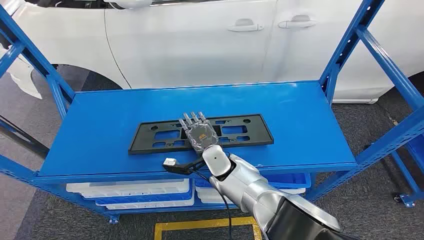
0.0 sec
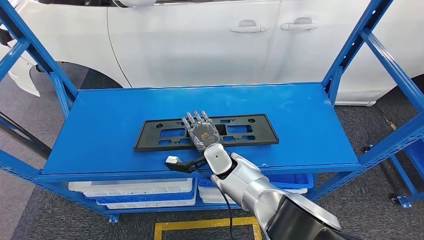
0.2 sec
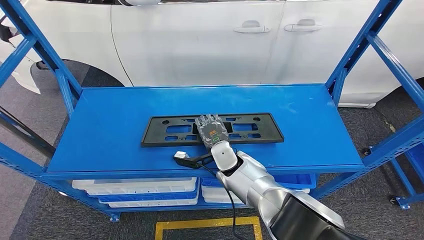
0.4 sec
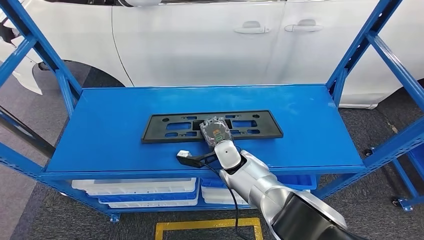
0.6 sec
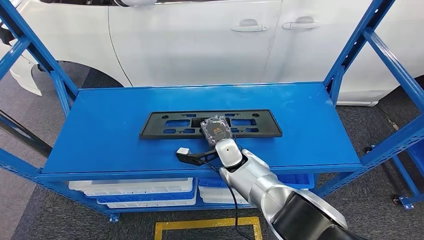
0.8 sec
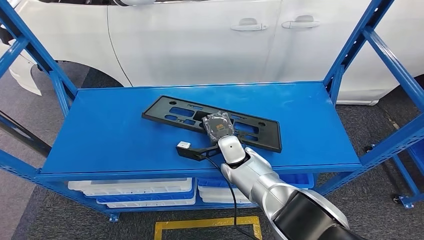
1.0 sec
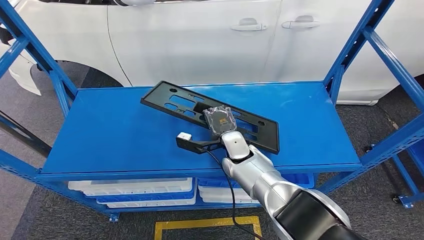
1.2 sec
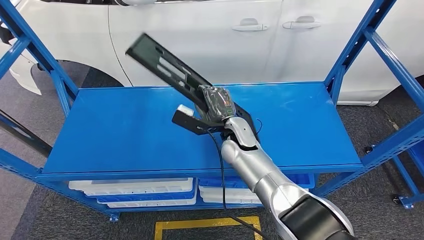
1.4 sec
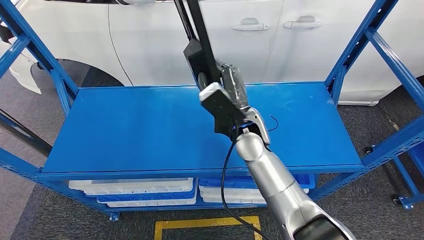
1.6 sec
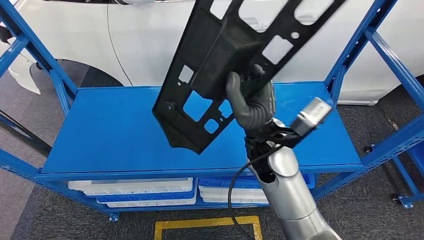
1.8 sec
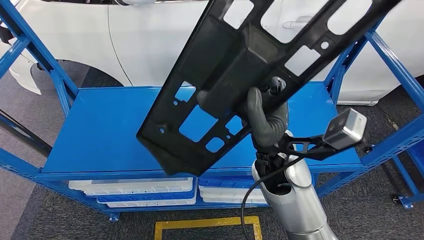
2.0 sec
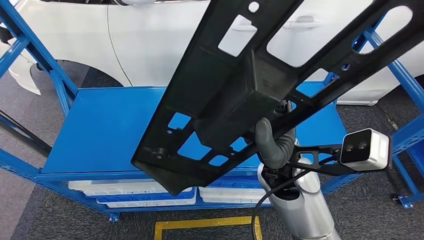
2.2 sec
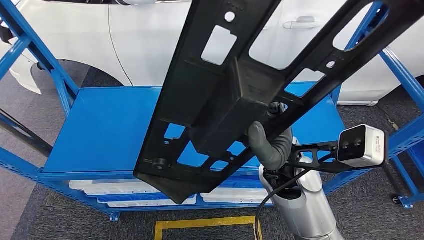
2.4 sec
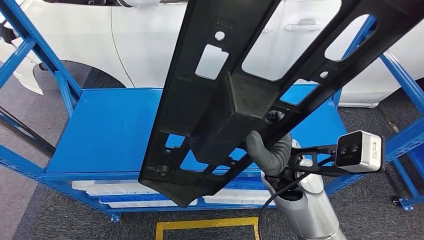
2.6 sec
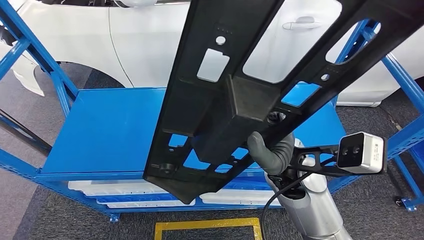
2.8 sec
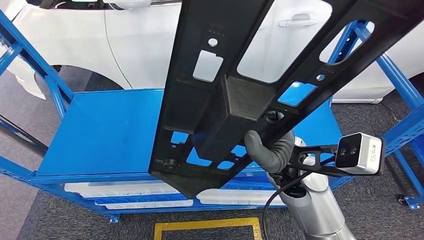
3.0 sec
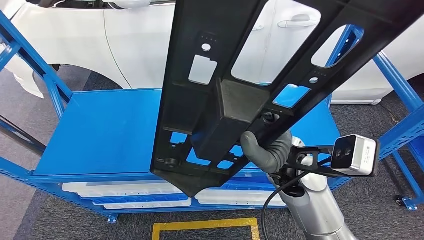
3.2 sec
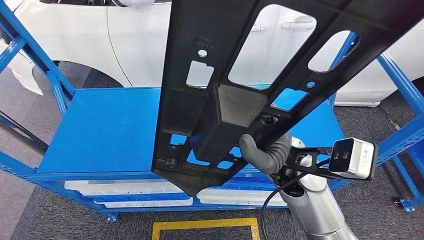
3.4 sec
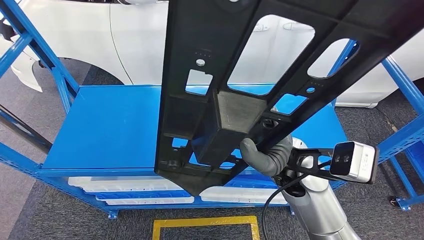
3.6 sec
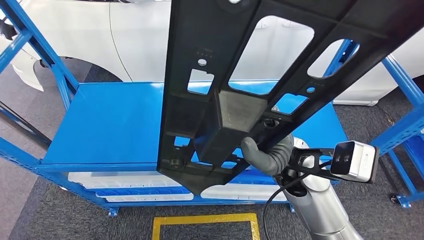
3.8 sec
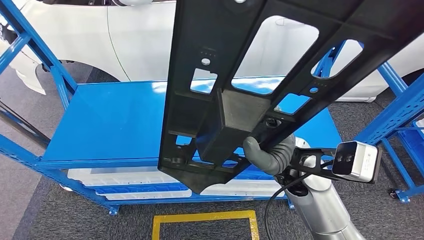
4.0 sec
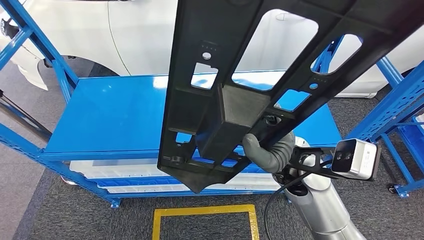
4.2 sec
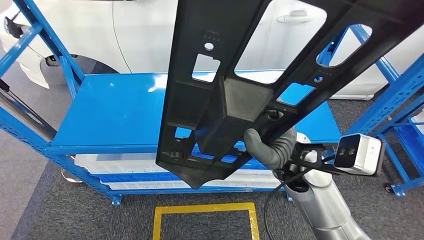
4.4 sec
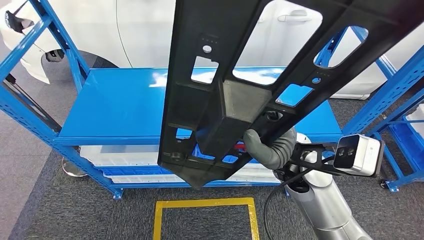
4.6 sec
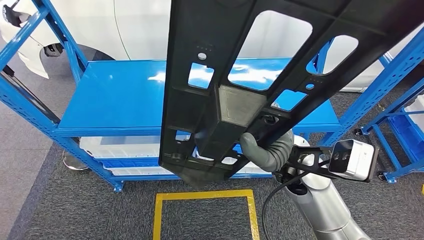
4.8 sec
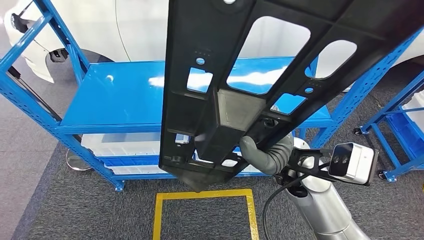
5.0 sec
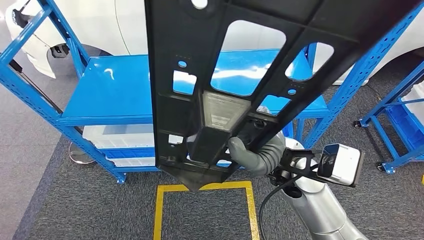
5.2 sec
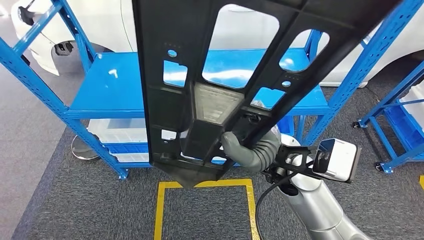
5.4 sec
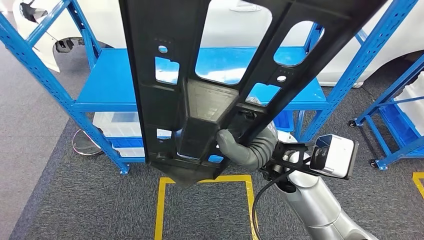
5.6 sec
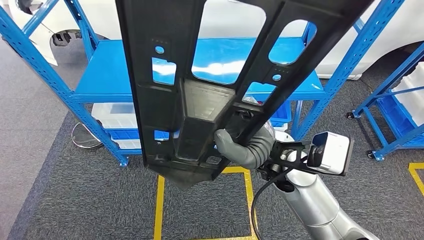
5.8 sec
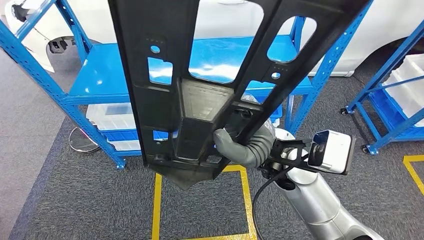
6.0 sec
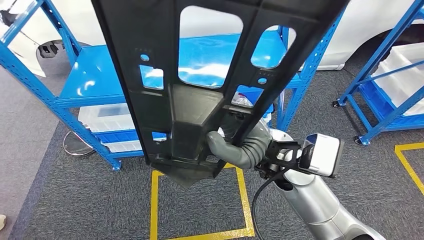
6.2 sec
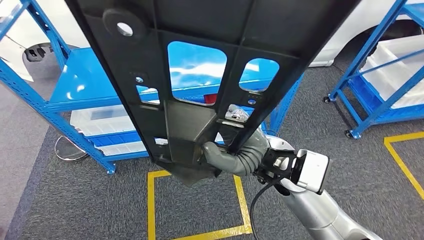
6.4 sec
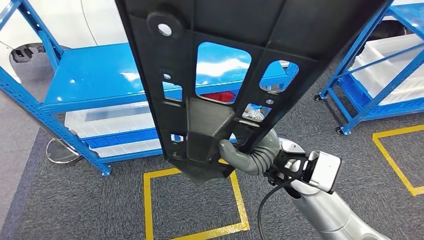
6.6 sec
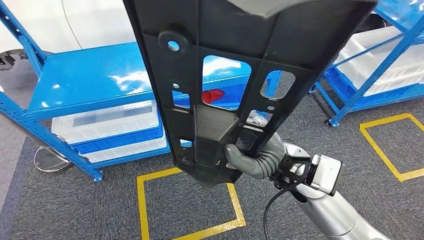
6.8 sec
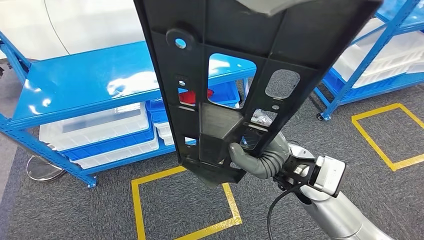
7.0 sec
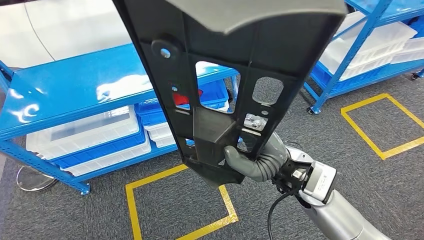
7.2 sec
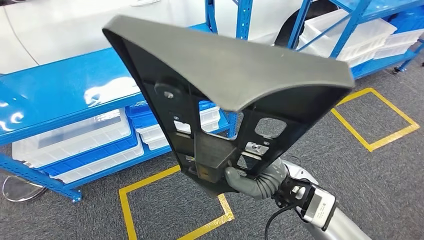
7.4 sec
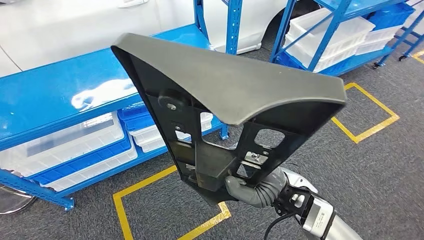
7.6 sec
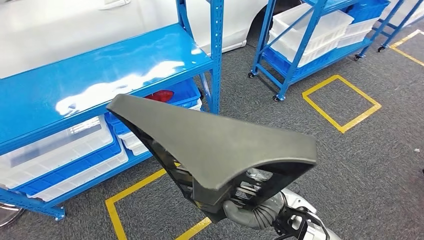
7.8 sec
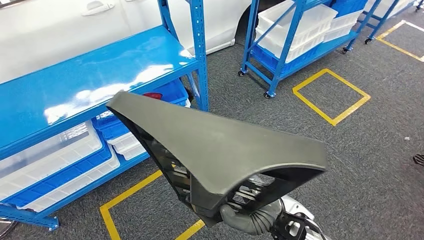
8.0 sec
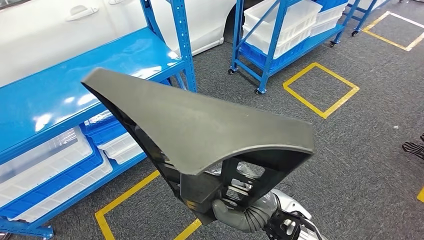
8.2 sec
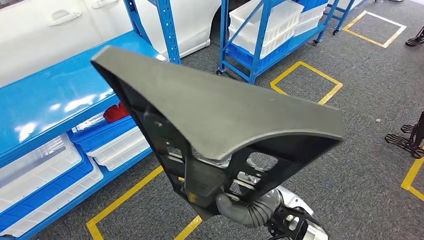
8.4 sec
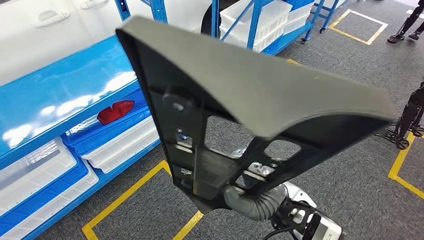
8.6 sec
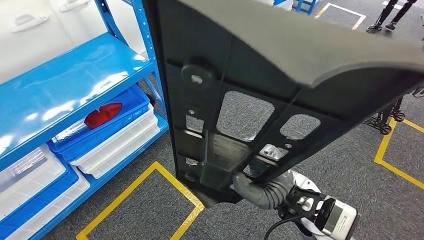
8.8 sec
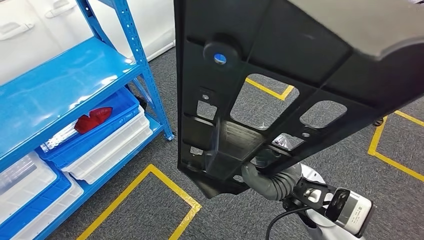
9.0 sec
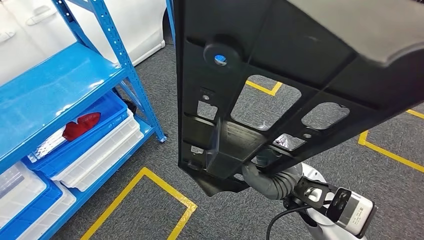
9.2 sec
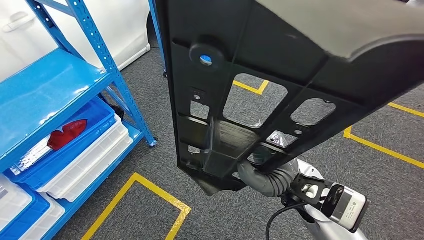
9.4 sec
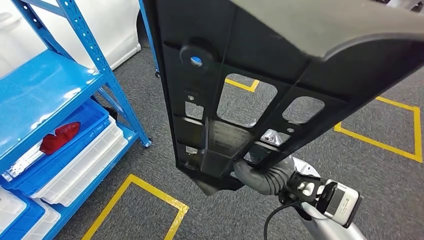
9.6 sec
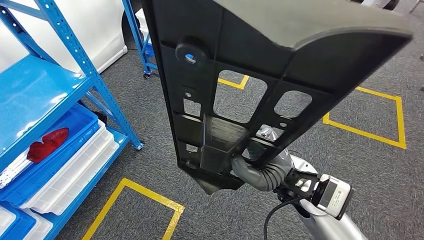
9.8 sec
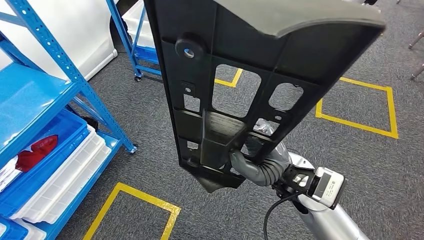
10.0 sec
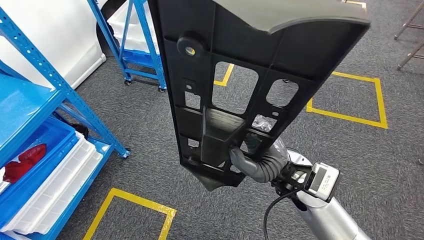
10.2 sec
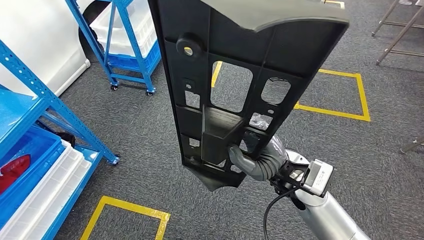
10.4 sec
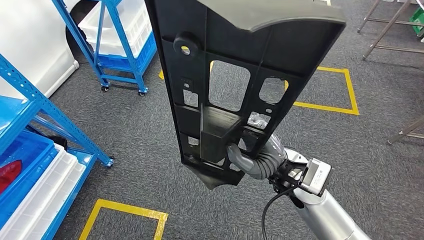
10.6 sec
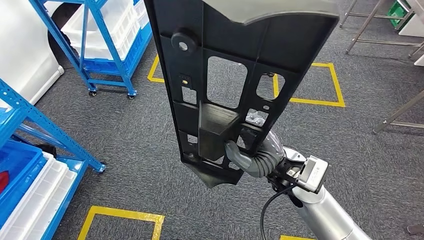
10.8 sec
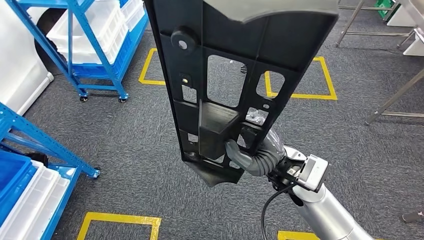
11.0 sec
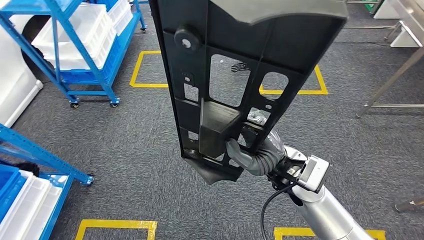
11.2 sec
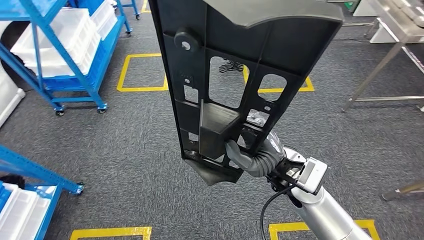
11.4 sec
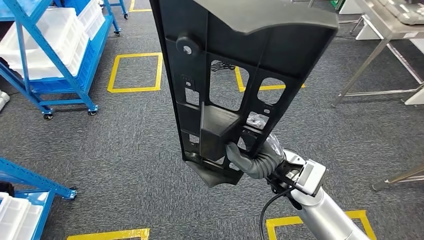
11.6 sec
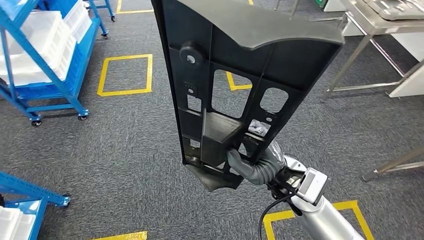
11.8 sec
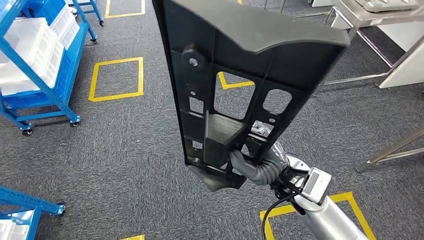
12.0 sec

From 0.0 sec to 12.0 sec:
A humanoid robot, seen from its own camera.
Step, from 0.0 sec to 2.8 sec: Take small components from the rack.

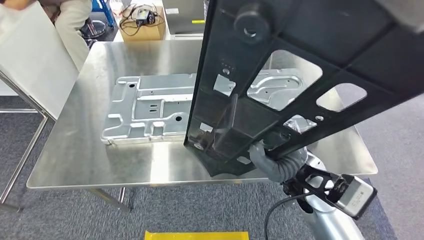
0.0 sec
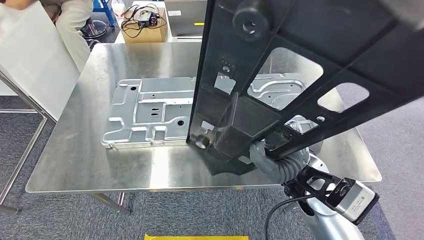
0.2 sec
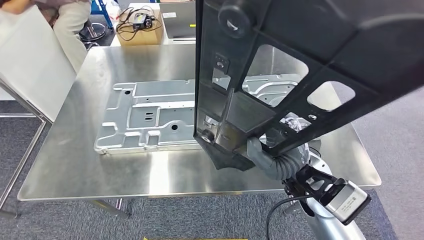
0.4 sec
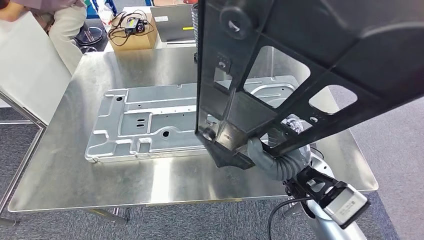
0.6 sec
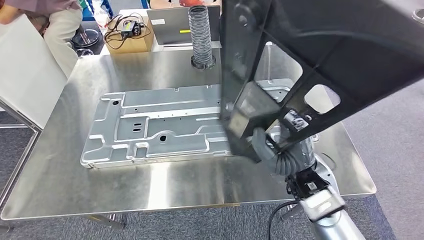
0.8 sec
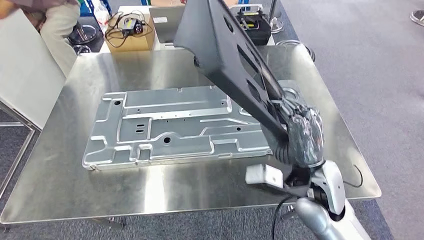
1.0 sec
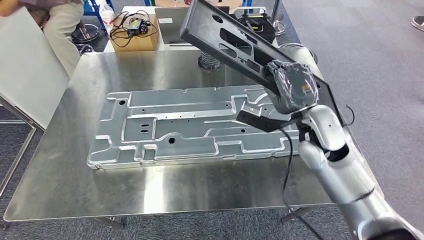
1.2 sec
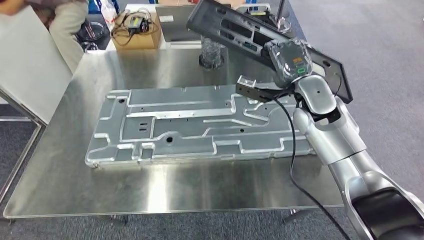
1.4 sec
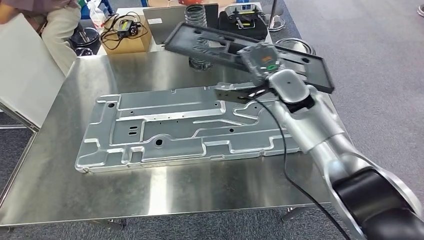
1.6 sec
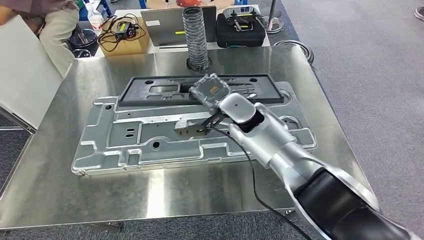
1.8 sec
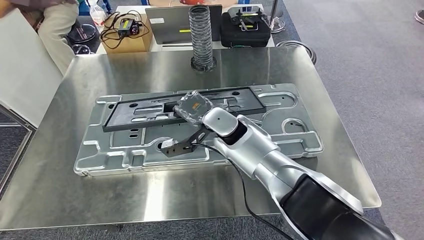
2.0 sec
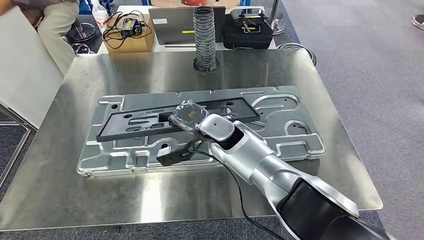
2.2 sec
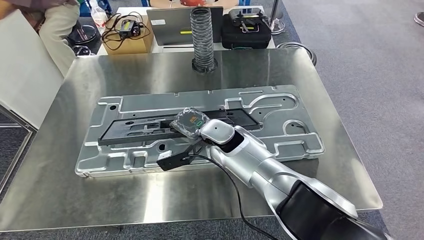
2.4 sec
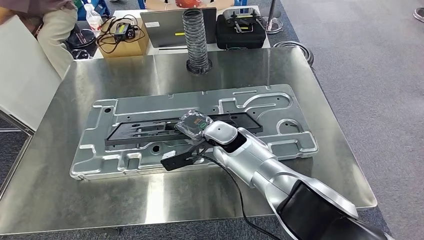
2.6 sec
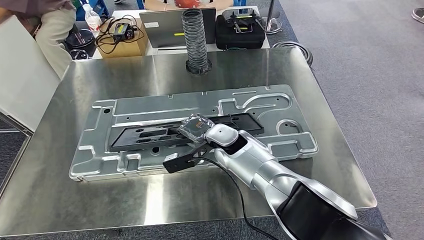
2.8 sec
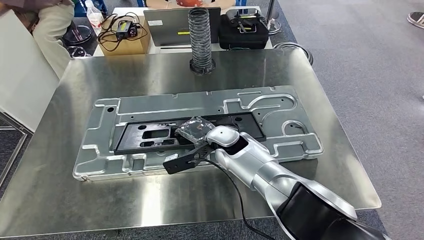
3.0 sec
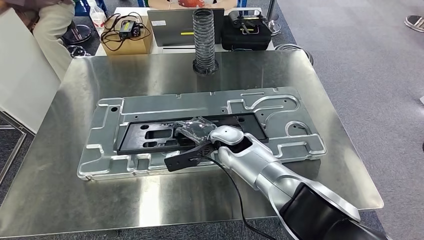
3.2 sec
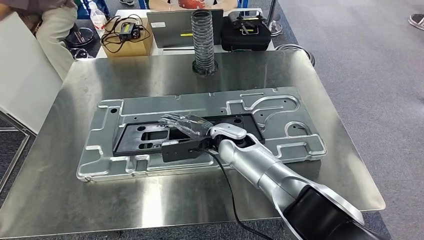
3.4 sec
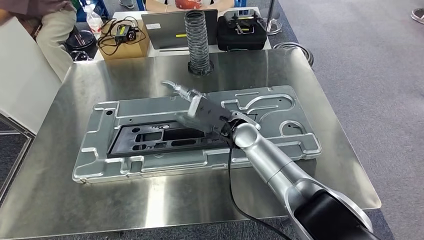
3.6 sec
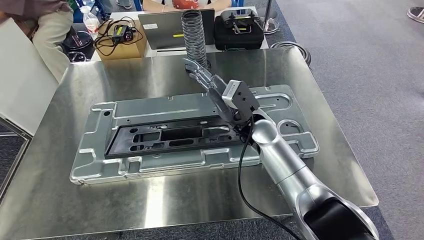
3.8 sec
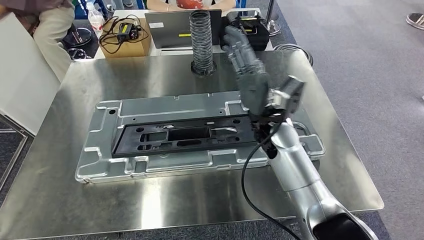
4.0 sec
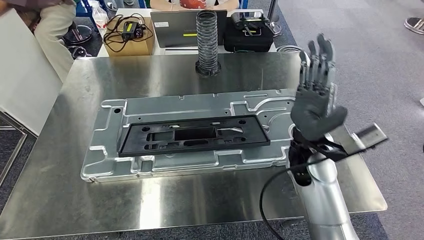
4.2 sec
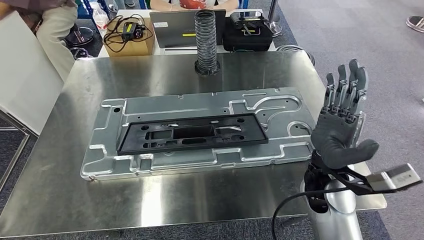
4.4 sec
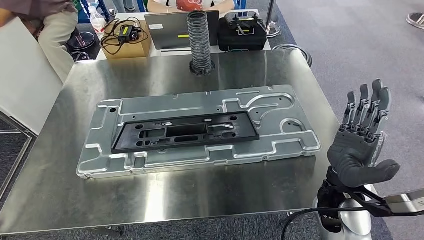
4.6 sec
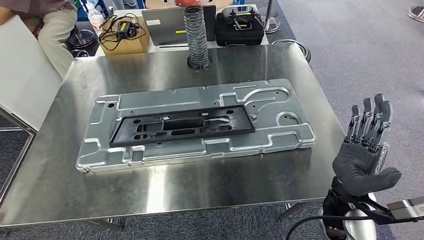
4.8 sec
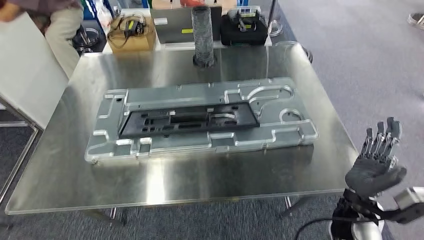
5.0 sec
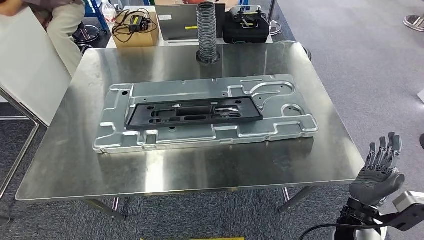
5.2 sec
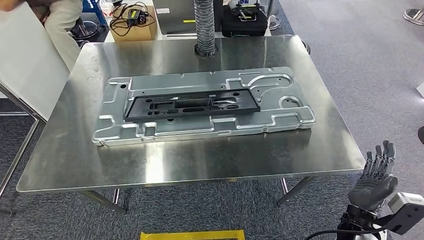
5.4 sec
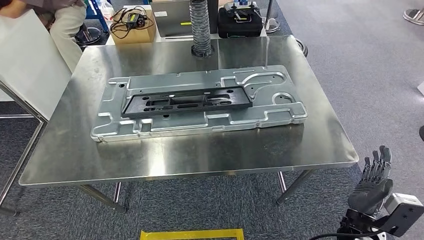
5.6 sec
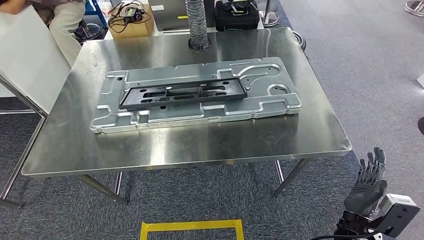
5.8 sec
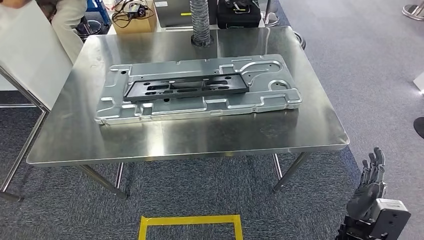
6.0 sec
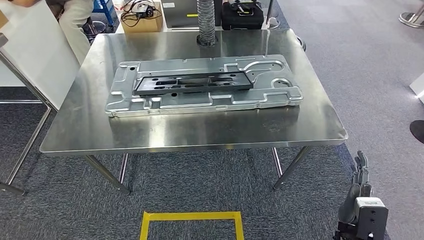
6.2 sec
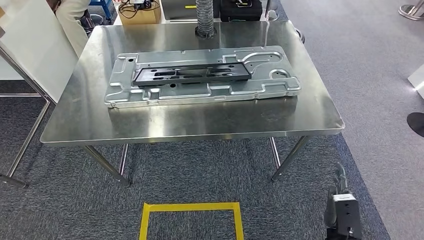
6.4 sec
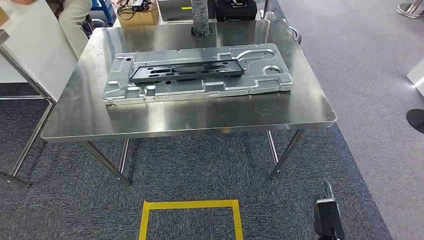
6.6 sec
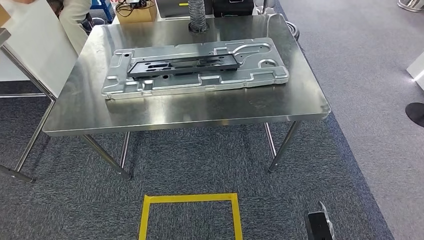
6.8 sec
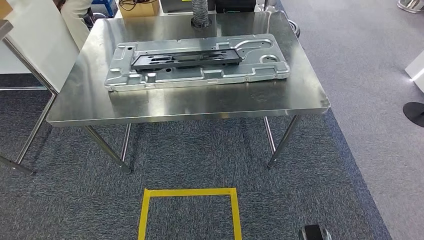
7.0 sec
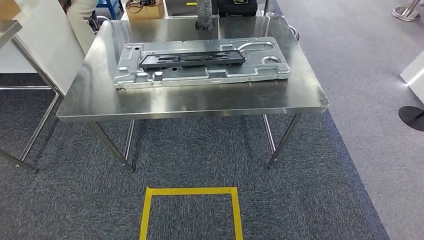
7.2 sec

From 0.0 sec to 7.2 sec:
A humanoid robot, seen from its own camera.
Step, from 1.6 sec to 4.8 sec: Insert the small parts into the corresponding holes on the workbench.
